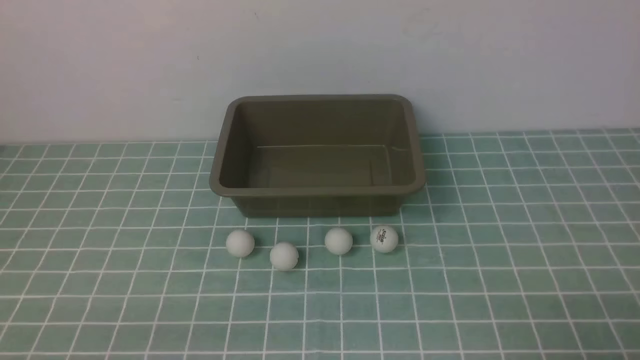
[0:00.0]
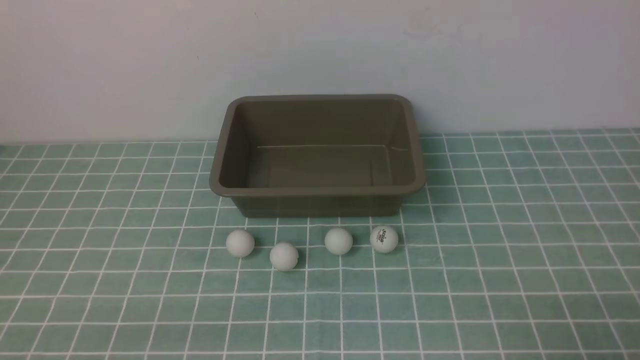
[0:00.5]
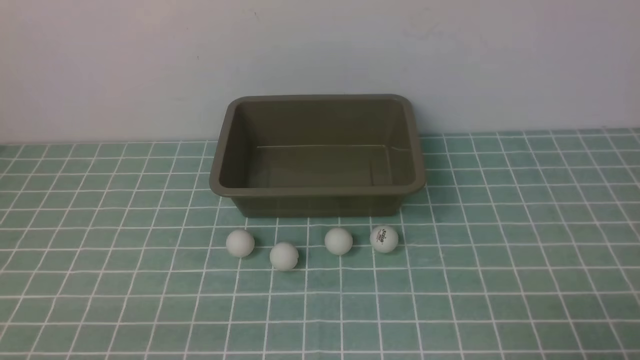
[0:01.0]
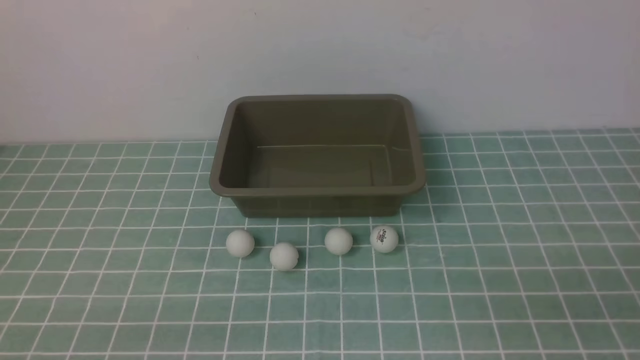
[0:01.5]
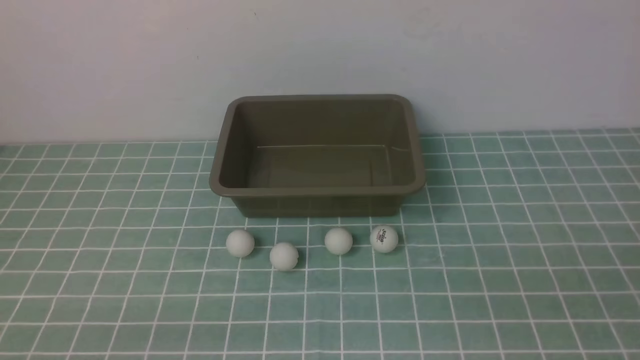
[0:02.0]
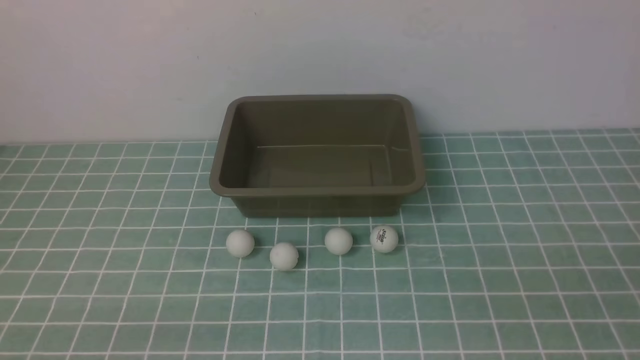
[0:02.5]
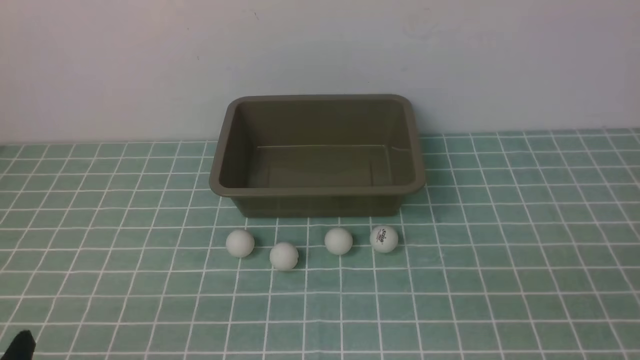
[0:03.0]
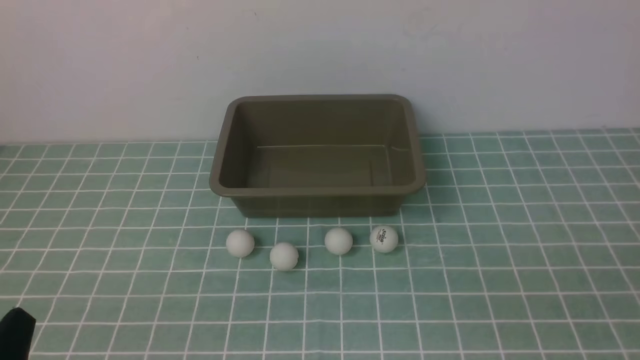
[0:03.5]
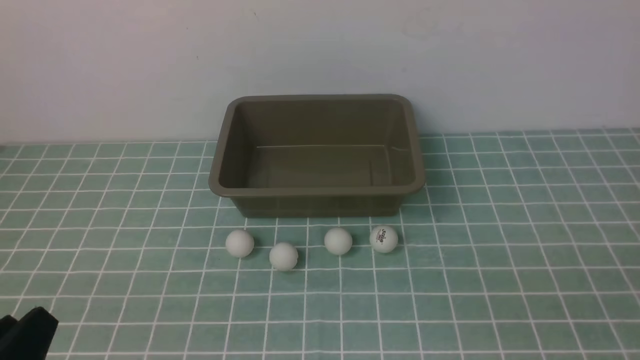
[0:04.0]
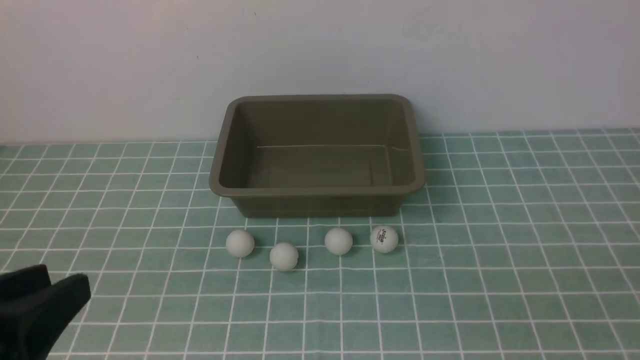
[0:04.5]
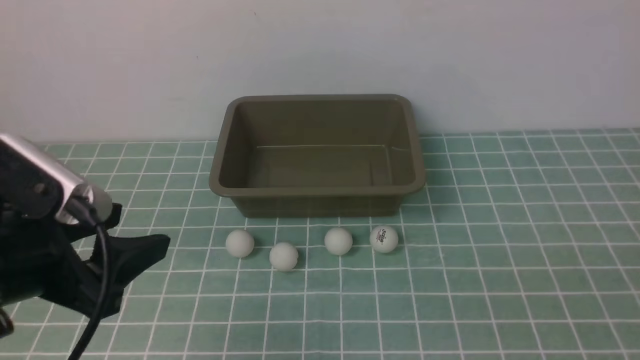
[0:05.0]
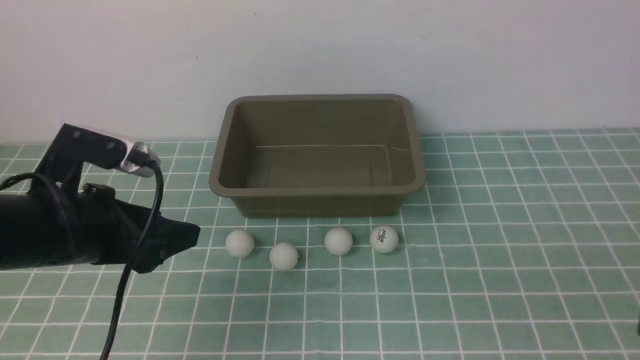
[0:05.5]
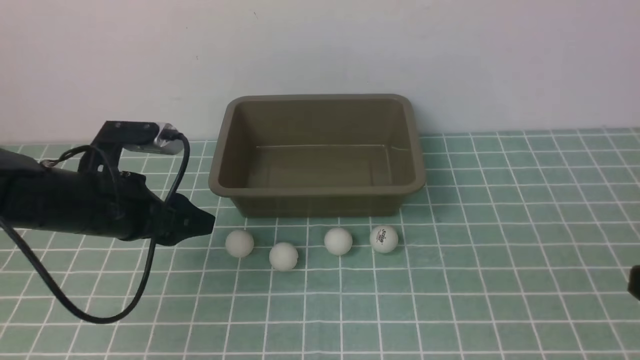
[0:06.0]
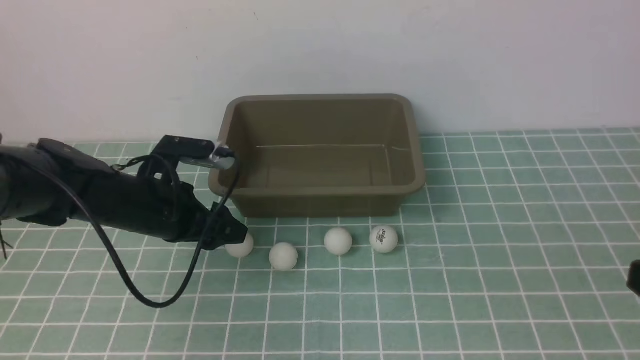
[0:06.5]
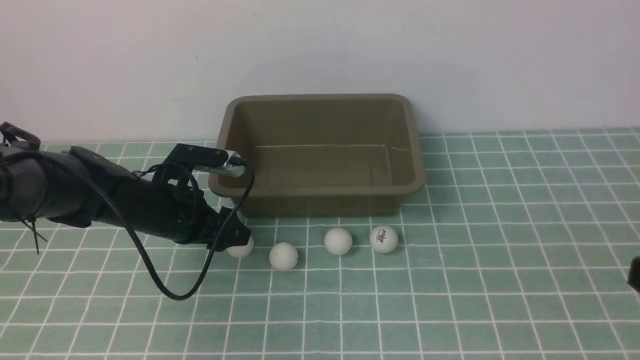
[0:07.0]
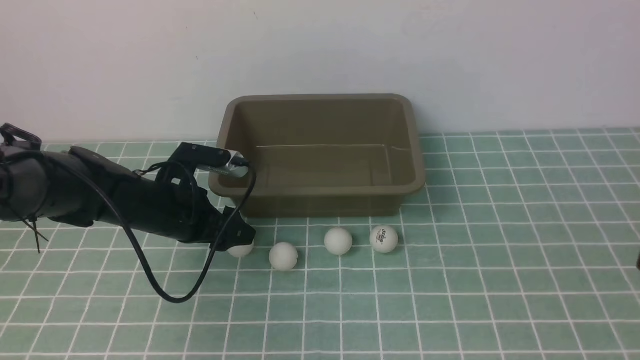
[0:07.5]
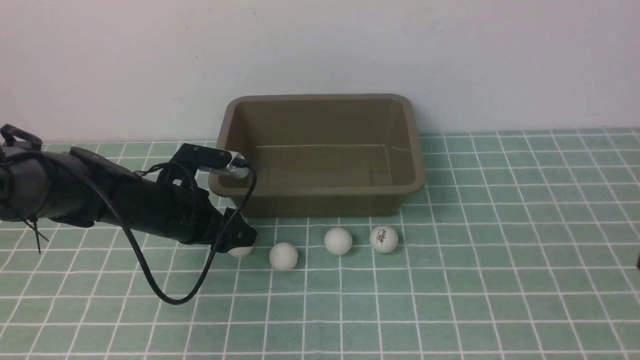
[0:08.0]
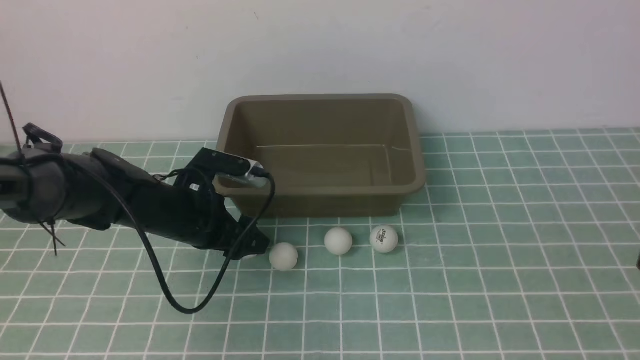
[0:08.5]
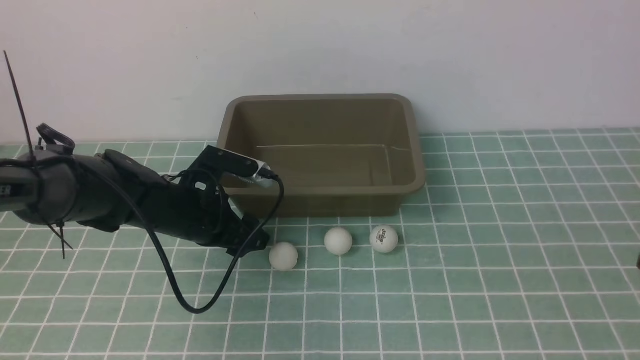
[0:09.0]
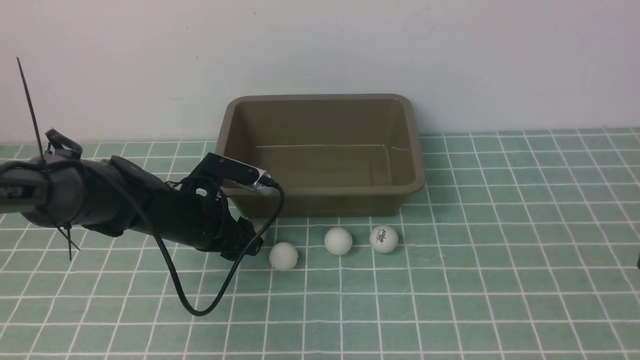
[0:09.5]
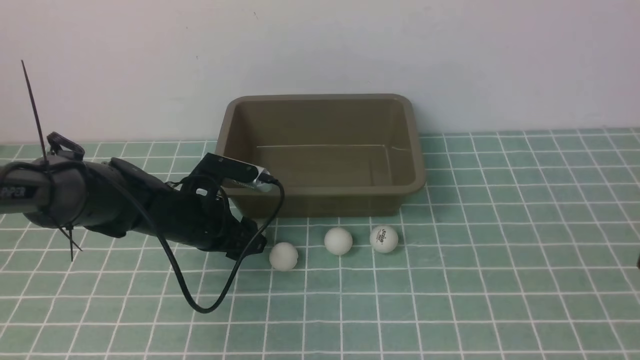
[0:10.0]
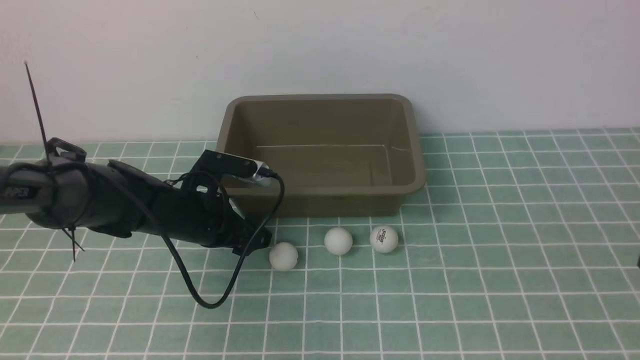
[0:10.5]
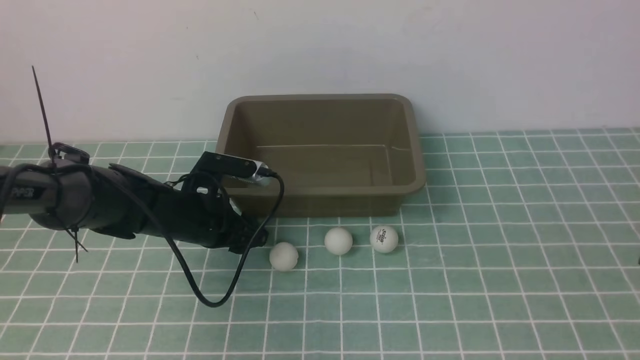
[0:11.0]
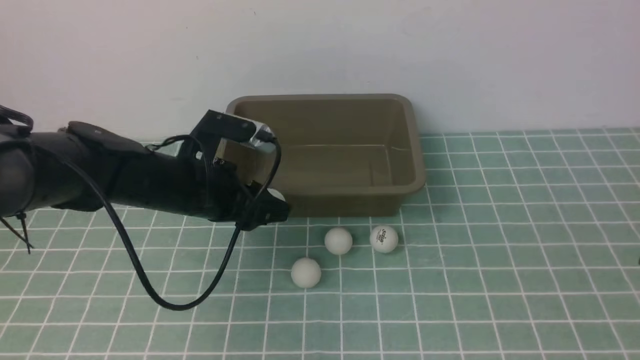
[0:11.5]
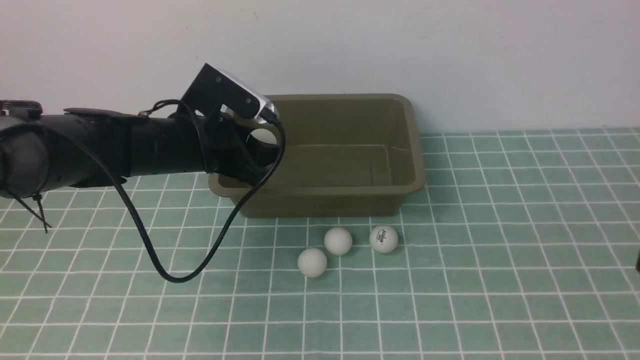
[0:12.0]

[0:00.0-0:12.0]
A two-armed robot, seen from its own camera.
Step, 0:00.0 to 0:11.5: use the left arm to clamp the table tennis ball closest to it.
0:02.0 to 0:04.0: The left gripper heads upward, covering approximately 5 cm.
0:04.0 to 0:06.0: The right gripper travels forward by some 5 cm. The left gripper travels forward by about 25 cm, and opens.
0:06.0 to 0:08.0: The left gripper goes approximately 10 cm downward and forward.
0:08.0 to 0:10.0: The grippers move only a little.
0:10.0 to 0:12.0: The left gripper shifts some 10 cm upward.

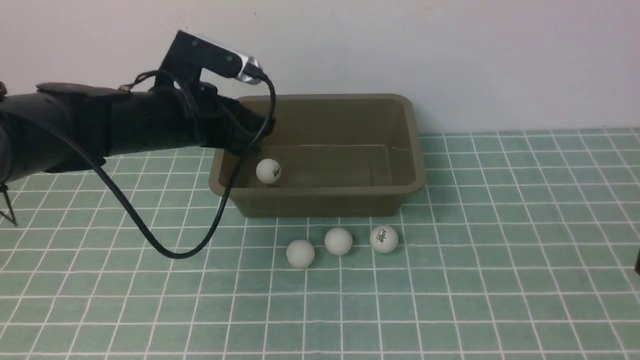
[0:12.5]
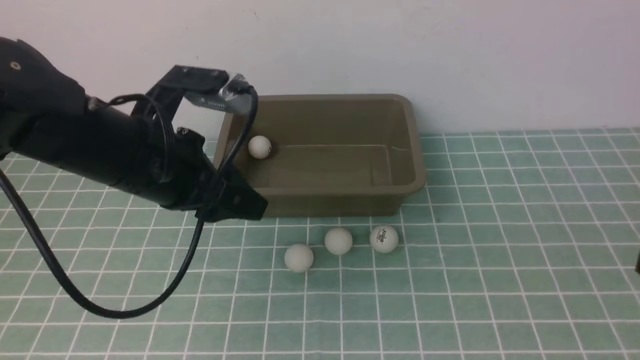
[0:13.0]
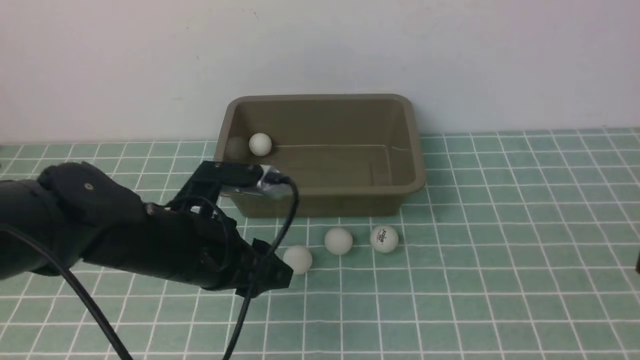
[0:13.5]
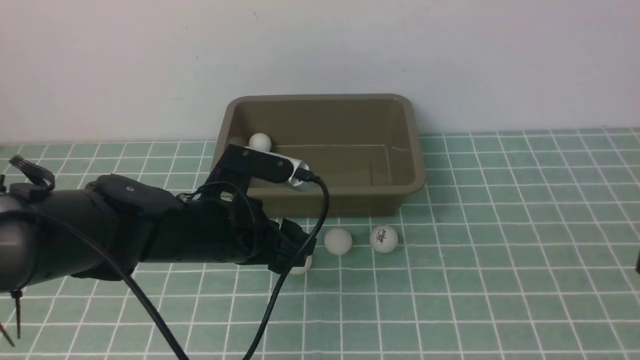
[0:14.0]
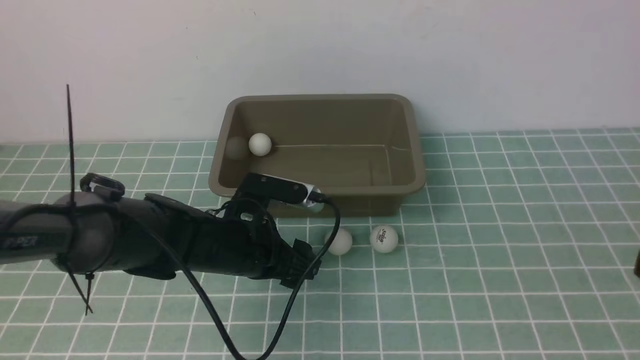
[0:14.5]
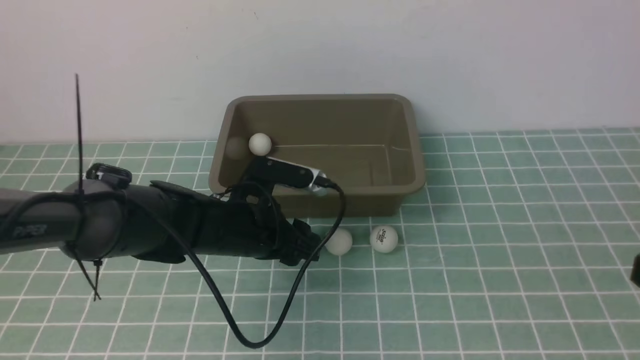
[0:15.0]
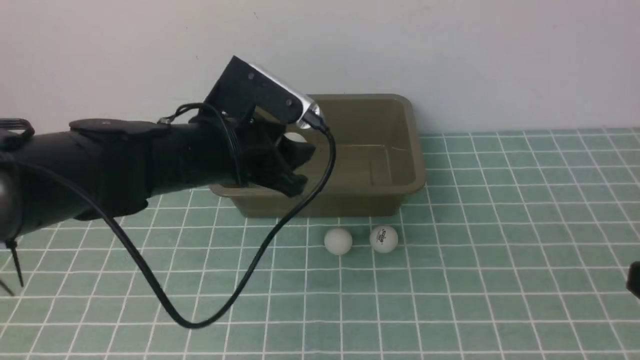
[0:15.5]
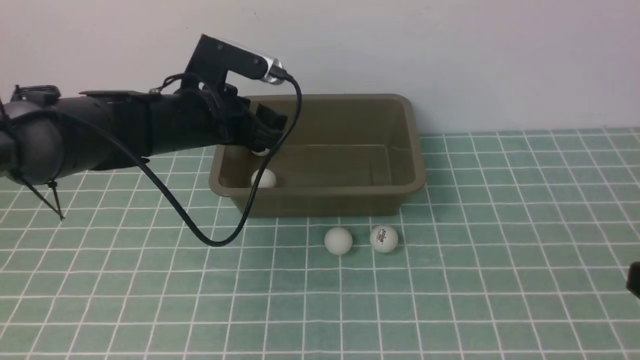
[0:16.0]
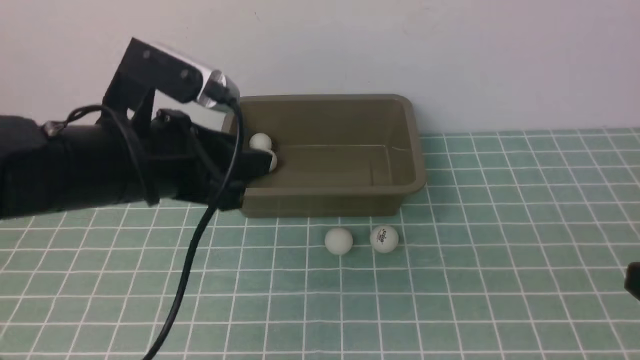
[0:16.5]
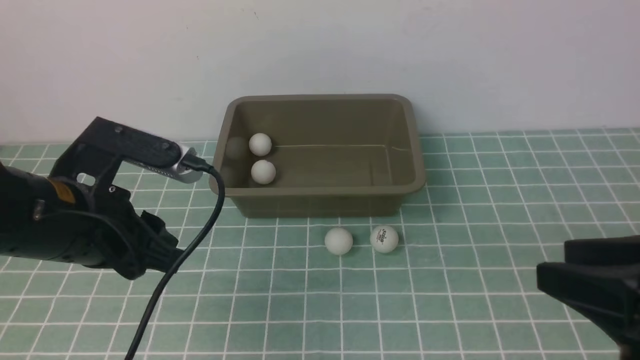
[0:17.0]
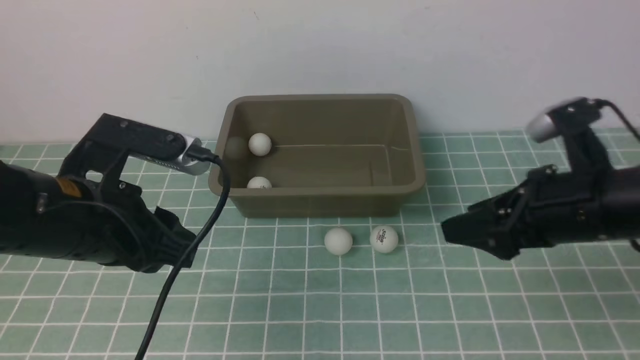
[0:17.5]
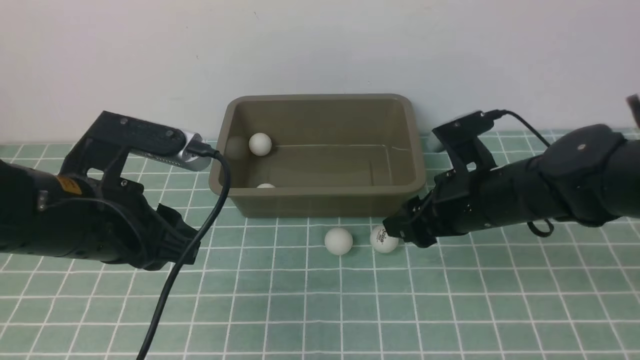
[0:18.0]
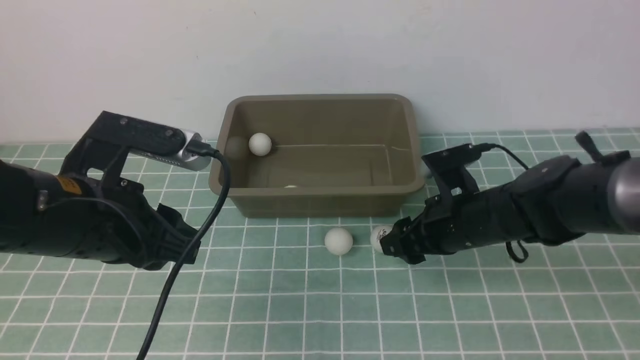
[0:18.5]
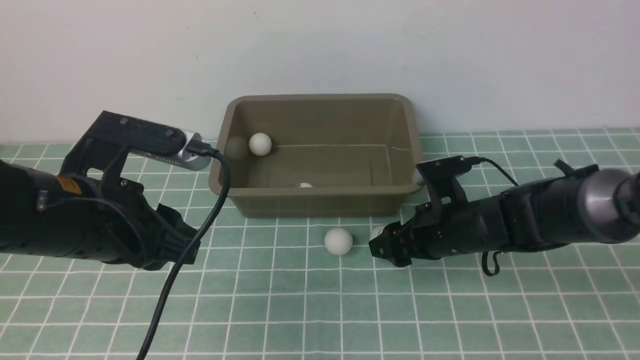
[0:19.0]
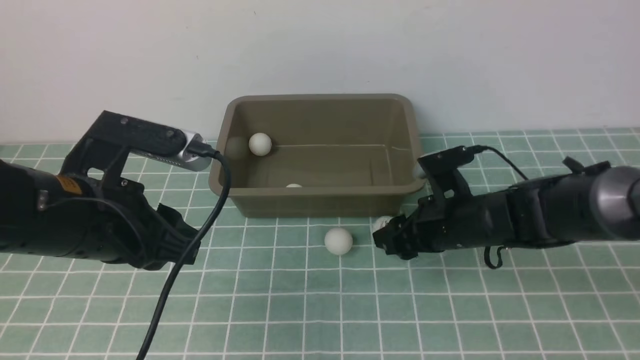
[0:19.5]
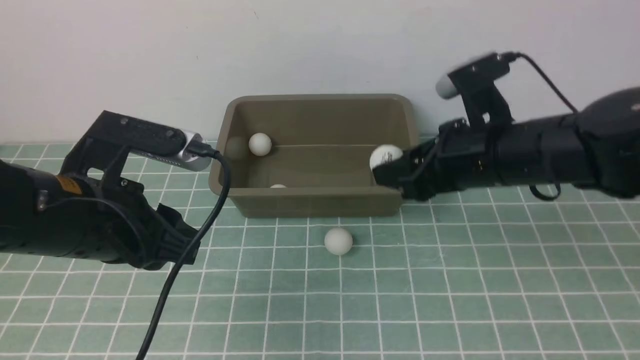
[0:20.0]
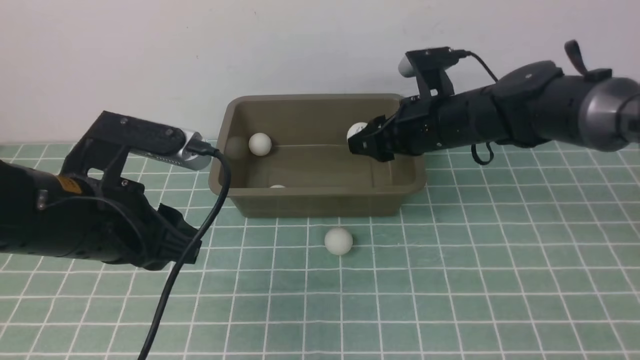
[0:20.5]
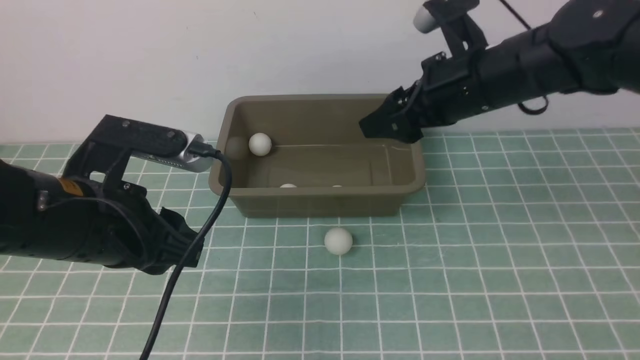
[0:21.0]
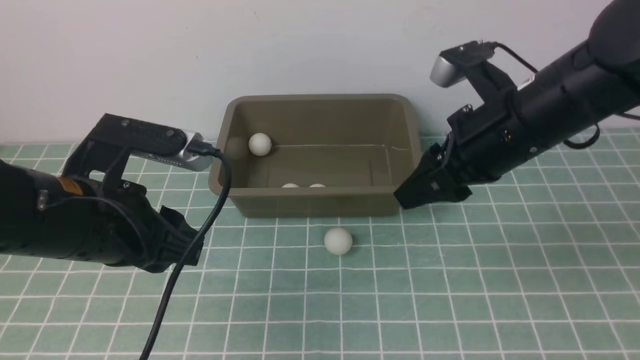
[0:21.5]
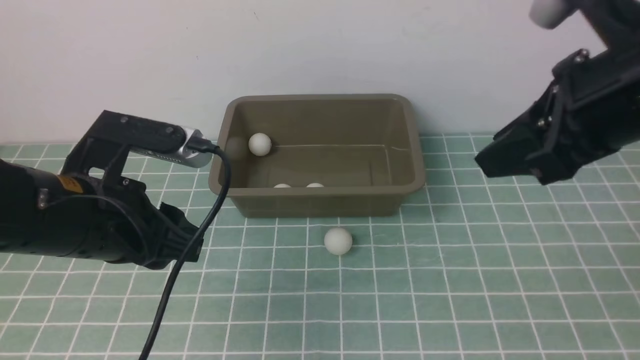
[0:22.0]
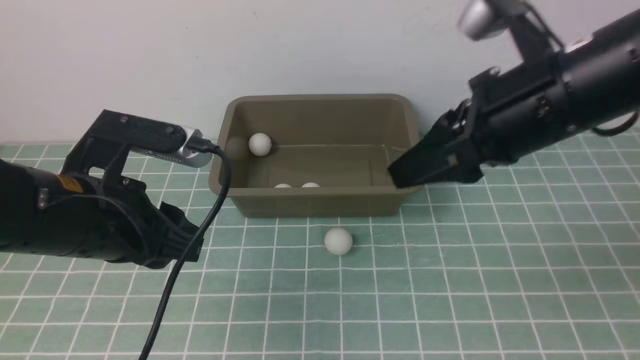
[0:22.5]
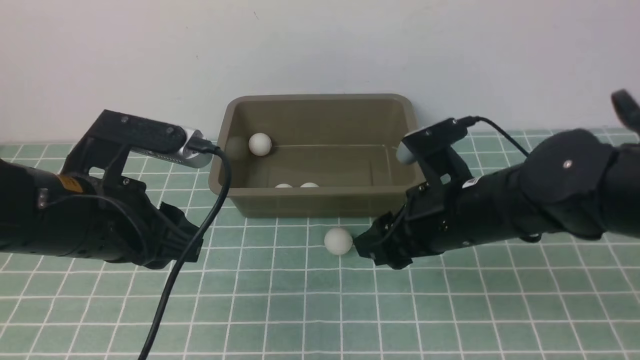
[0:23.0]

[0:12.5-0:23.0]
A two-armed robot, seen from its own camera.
Step, 0:13.0 to 0:15.0: use the left arm to clamp the table tennis ball closest to it.
Step, 0:15.5 to 0:16.0: use the left arm to put the table tennis ball into the box.
Step, 0:16.5 to 0:19.5: use the right arm to clamp the table tennis ball closest to it.
Step, 0:20.0 to 0:20.5: use the right arm to put the table tennis ball into the box.
0:12.5 to 0:14.5: The left gripper moves downward, to the right and backward, some 15 cm, and closes, then opens again.
0:14.5 to 0:16.5: The left gripper shifts some 15 cm upward, and closes.
0:16.5 to 0:19.0: The left gripper changes place by approximately 5 cm, and closes up; the right gripper heads forward, downward and to the left, covering about 35 cm, and opens up.
0:19.0 to 0:21.0: The right gripper goes some 15 cm upward.
0:21.0 to 0:23.0: The right gripper travels backward and downward by roughly 10 cm, and closes.
